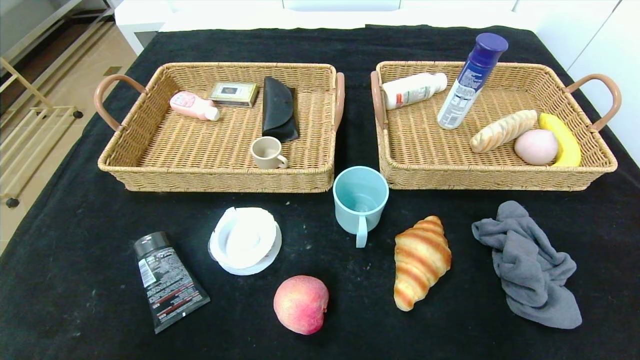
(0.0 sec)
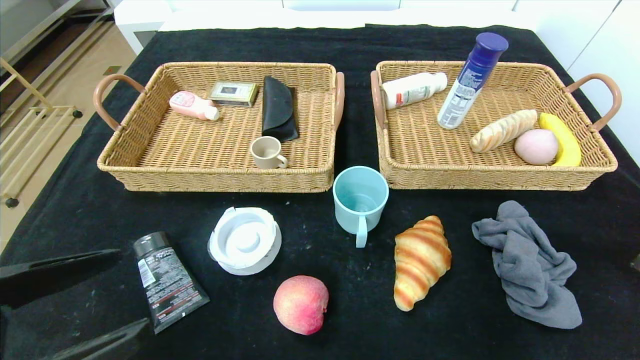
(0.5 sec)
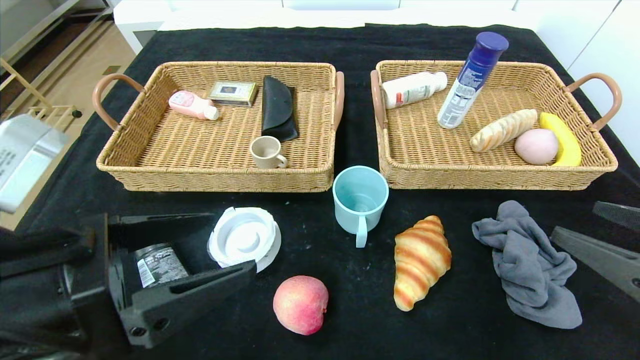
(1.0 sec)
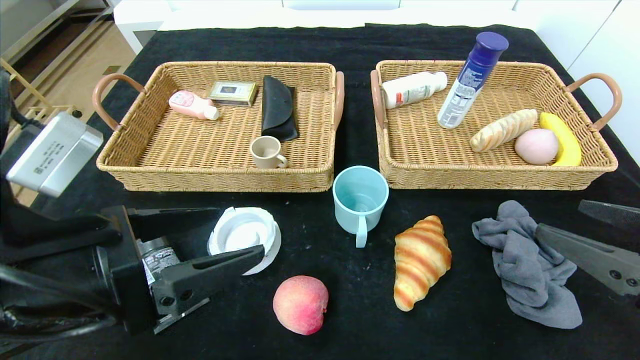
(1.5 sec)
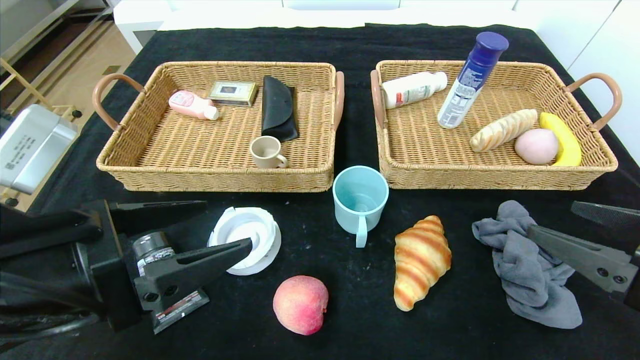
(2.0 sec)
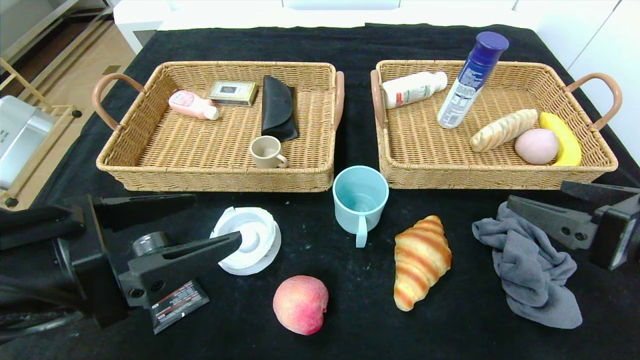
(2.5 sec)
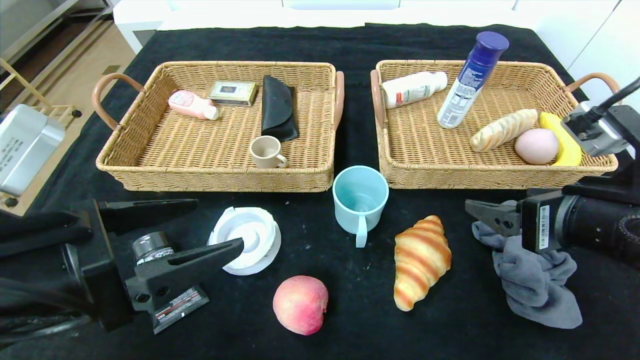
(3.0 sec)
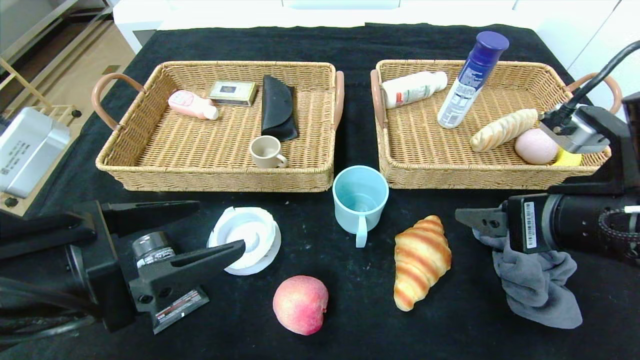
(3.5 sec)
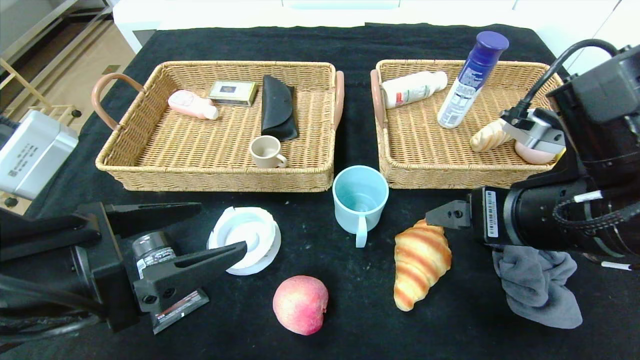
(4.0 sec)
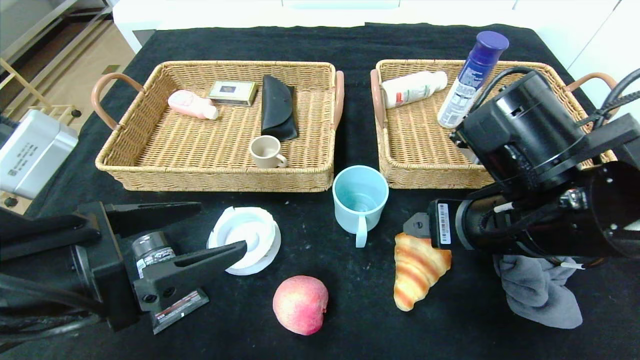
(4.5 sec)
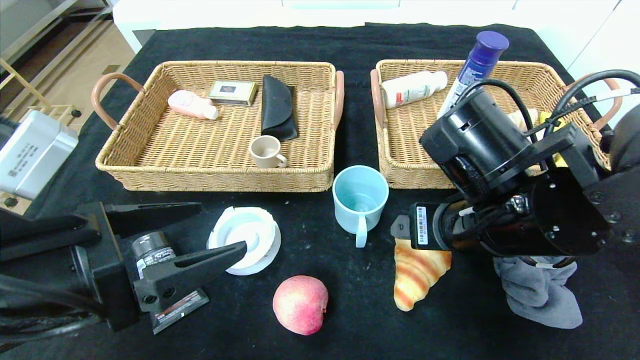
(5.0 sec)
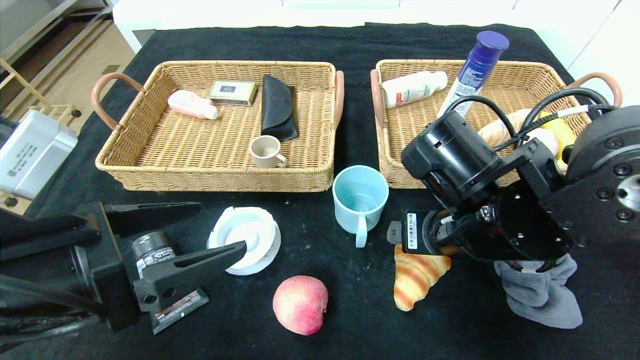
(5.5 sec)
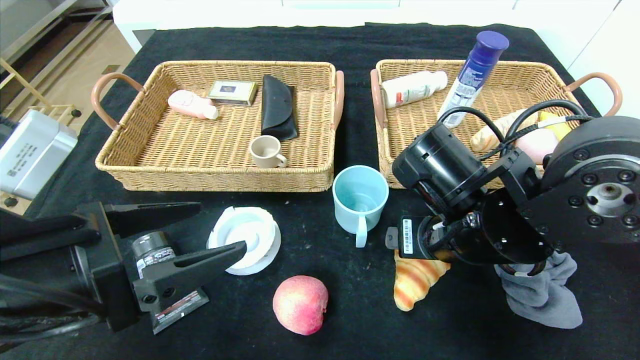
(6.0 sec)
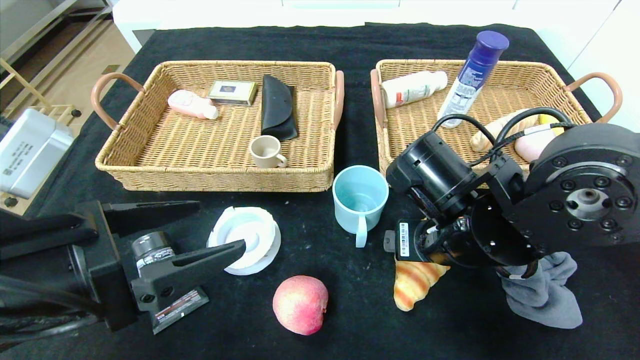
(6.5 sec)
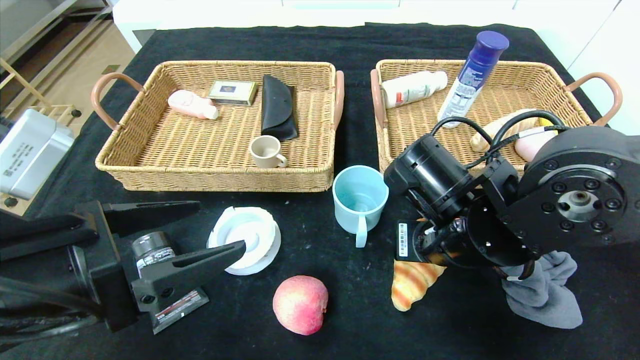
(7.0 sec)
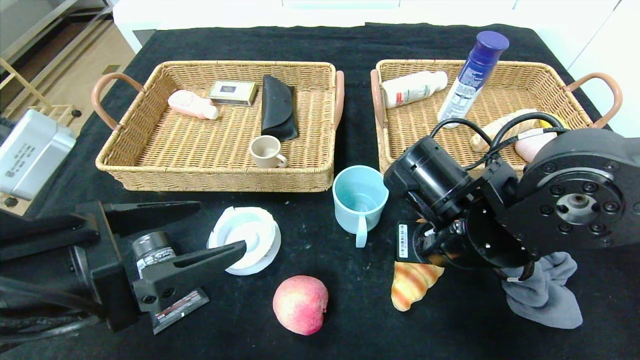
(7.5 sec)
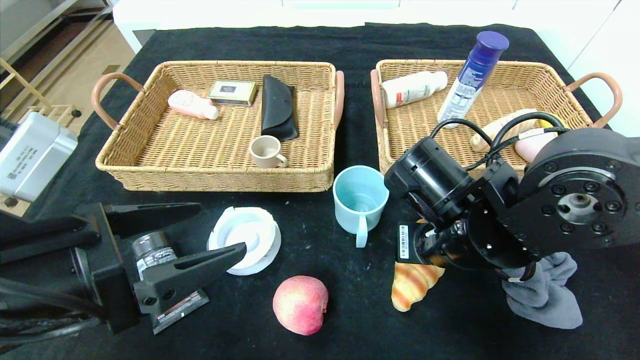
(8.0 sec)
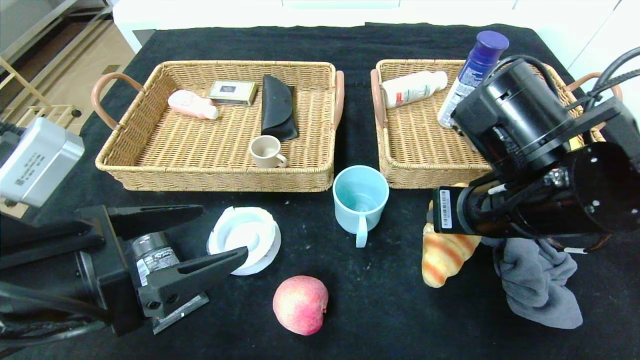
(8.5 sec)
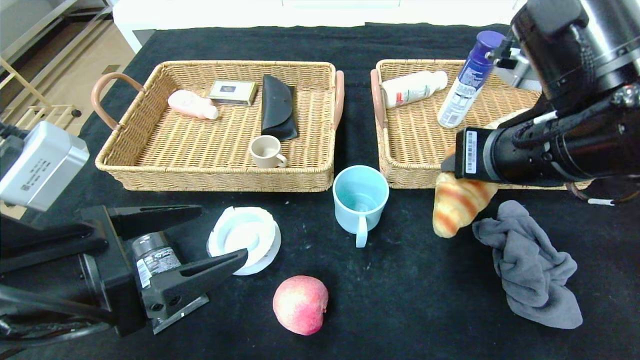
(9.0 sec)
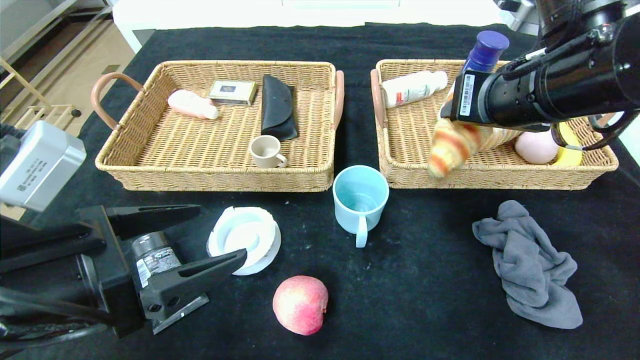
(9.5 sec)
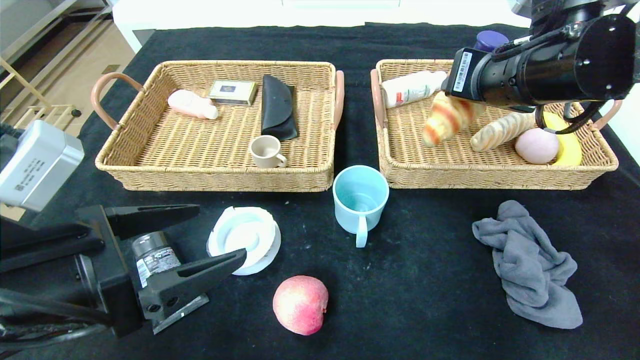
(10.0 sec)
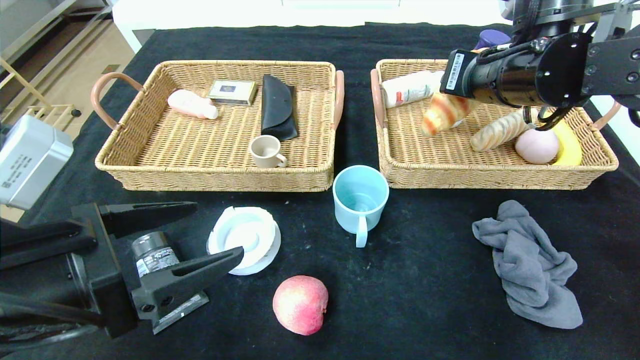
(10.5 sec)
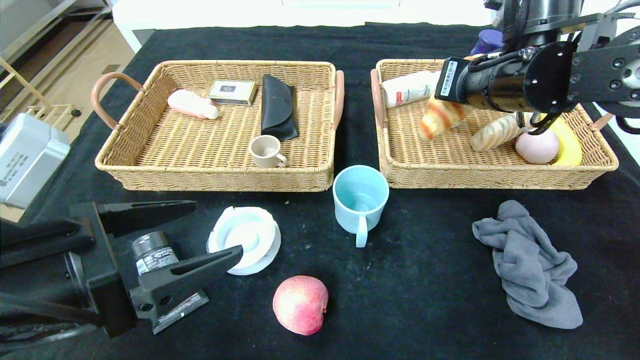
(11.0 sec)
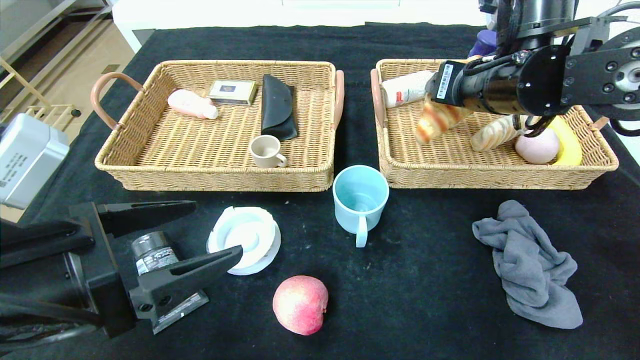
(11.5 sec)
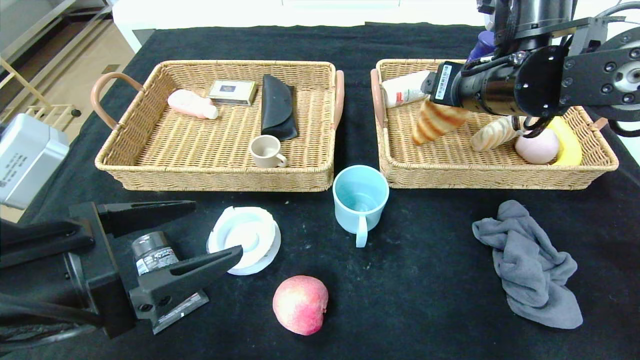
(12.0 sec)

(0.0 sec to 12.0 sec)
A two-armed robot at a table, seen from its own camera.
0.0 sec - 2.0 sec: The left gripper moves forward and to the right, some 15 cm; the right gripper moves forward and to the left, some 15 cm.
2.0 sec - 4.0 sec: The right gripper heads to the left and forward, covering approximately 15 cm.
4.0 sec - 6.0 sec: The right gripper travels to the left and downward by about 10 cm.
6.0 sec - 8.0 sec: The right gripper closes its fingers.
8.0 sec - 10.0 sec: The right gripper shifts about 15 cm upward and to the right.
10.0 sec - 12.0 sec: The right gripper opens.

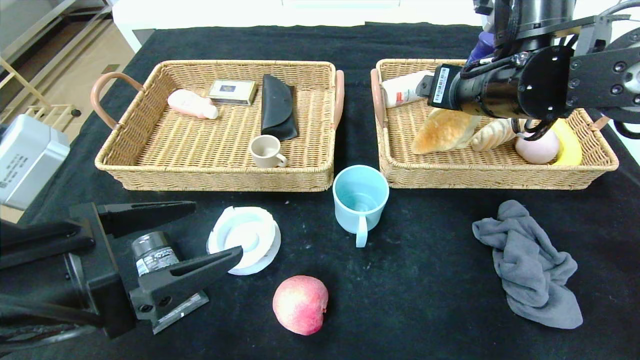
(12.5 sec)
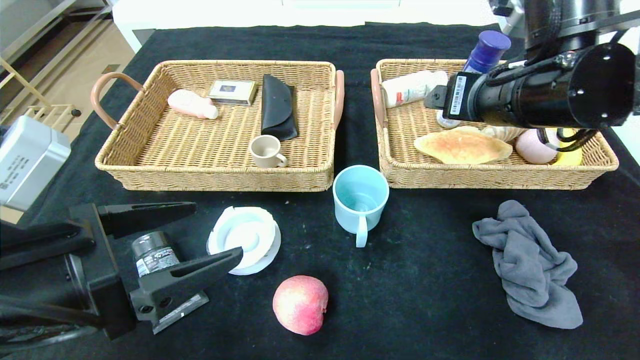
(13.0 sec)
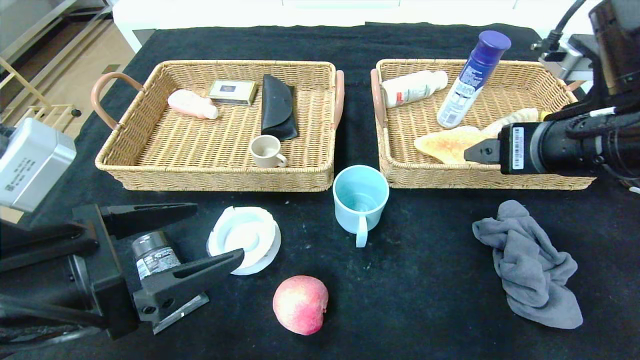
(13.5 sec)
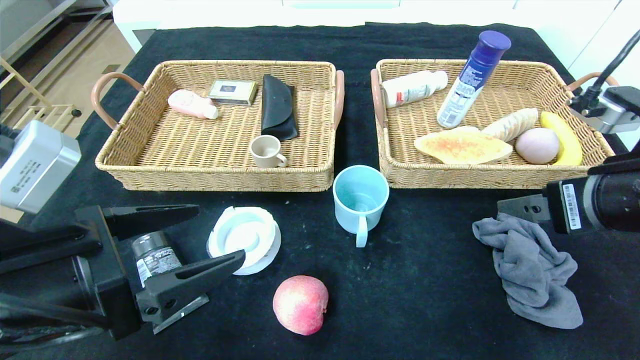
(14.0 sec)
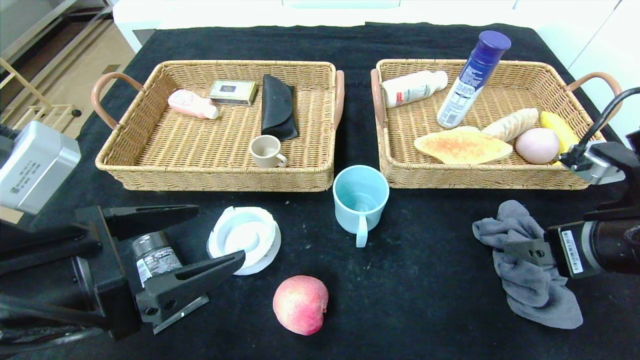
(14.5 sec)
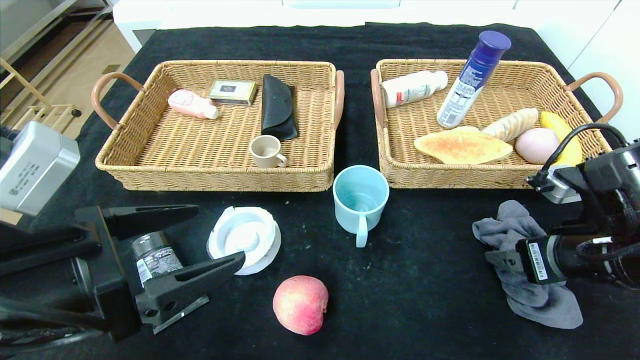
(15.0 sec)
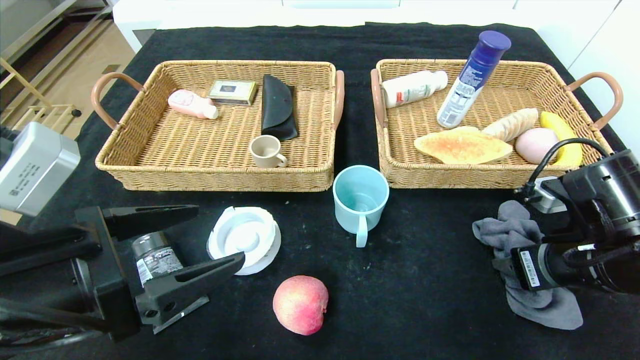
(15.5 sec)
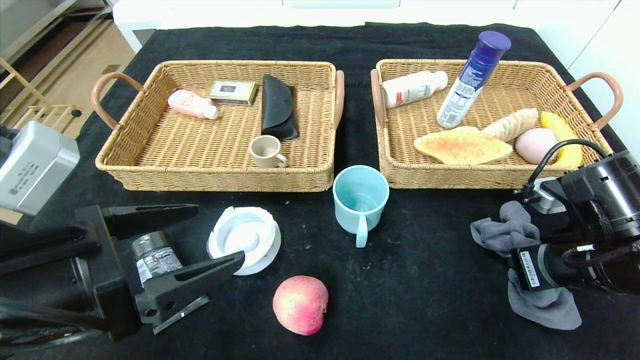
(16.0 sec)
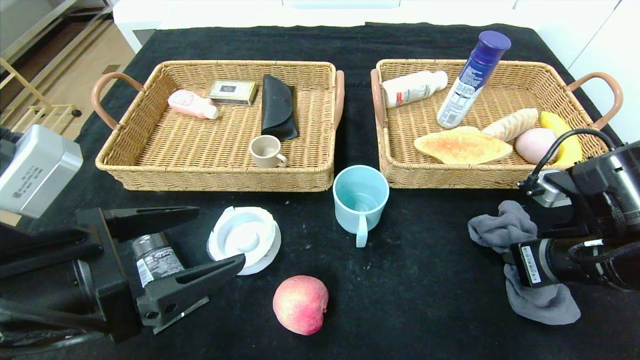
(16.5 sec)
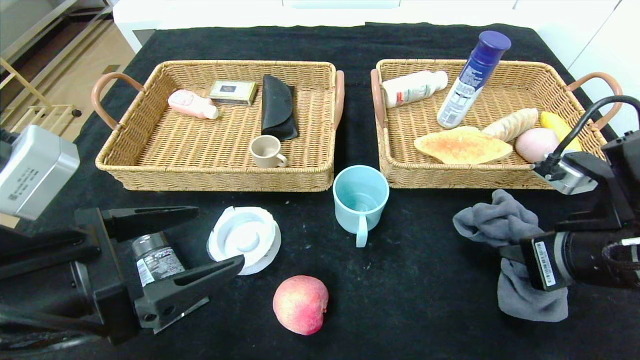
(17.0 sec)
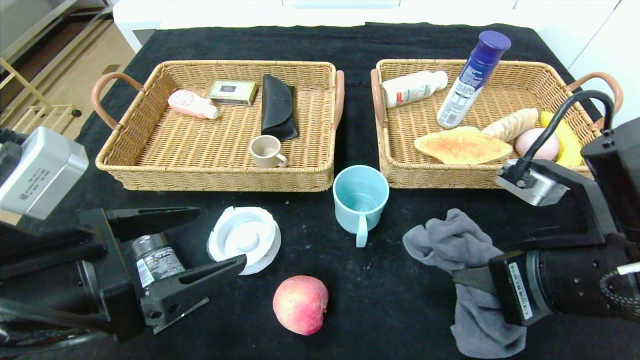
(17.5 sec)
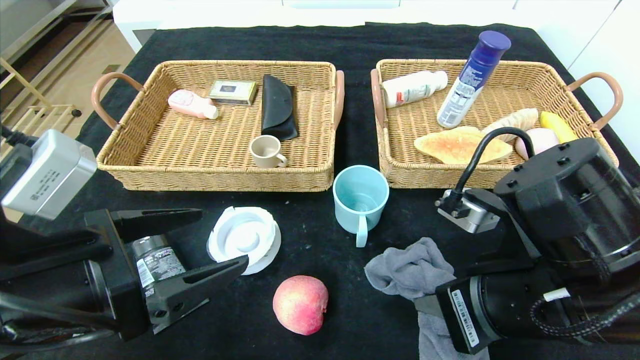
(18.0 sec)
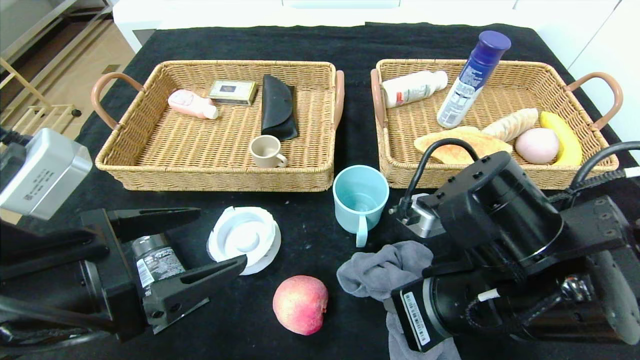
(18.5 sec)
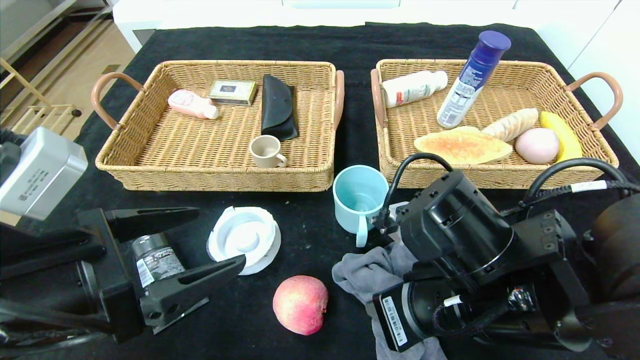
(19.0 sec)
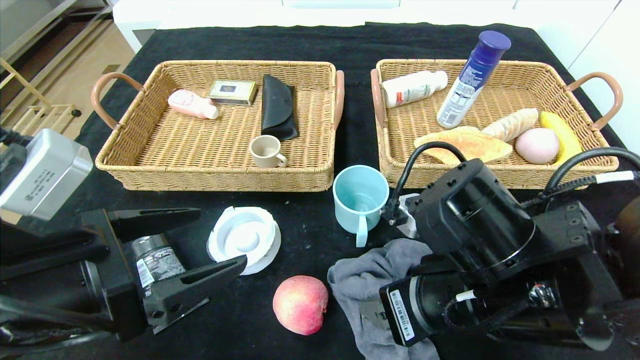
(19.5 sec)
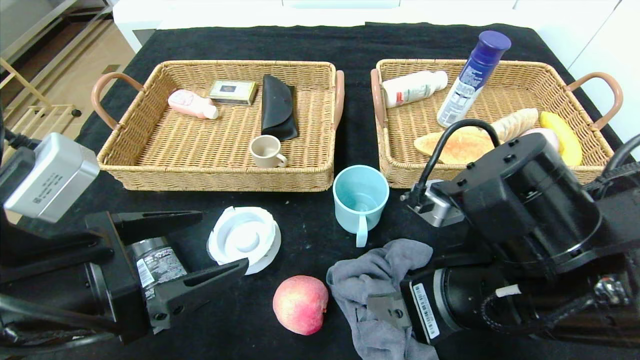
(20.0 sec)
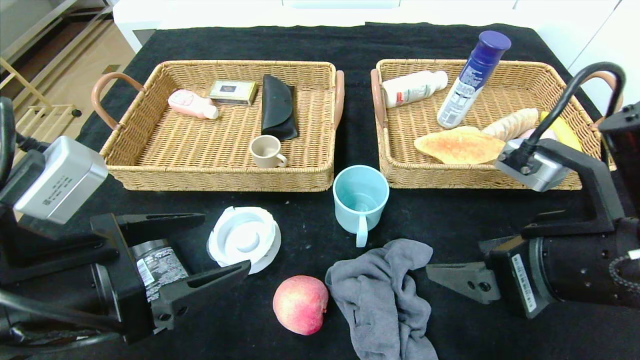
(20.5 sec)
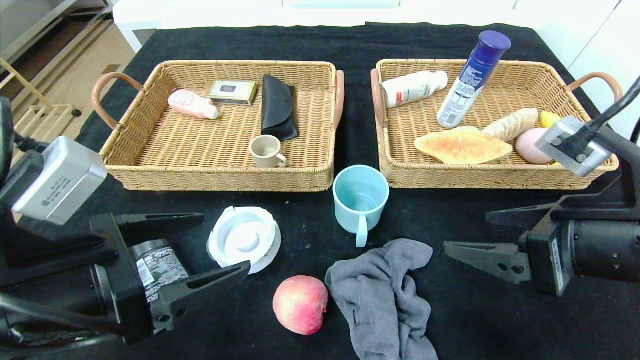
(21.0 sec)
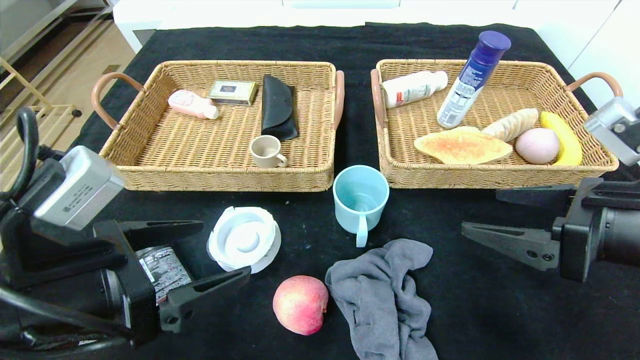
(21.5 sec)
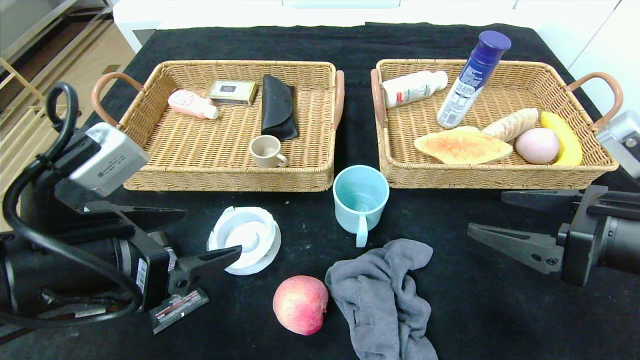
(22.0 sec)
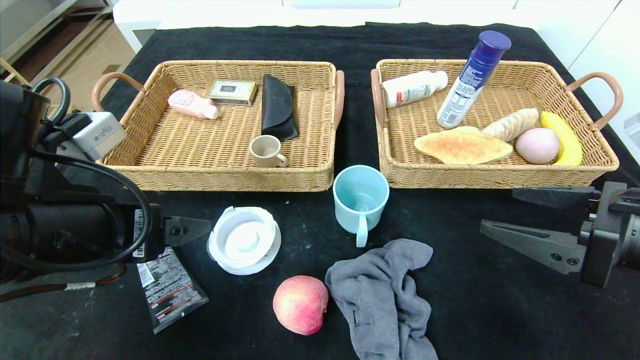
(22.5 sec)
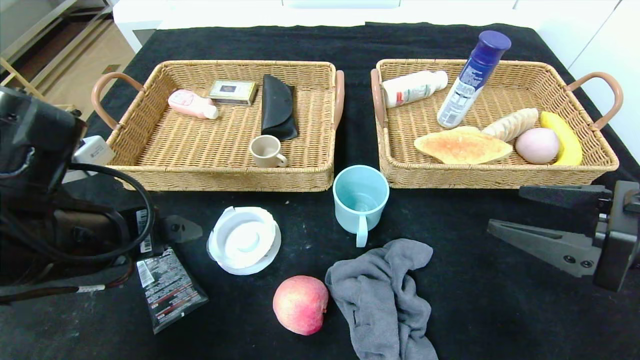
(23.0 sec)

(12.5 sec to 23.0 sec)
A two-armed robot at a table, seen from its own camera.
Step, 13.0 sec - 20.0 sec: Place the gray towel in the center of the table.
12.5 sec - 14.5 sec: The right gripper heads backward, to the right and downward, covering approximately 20 cm.
14.5 sec - 16.5 sec: The right gripper closes.
16.5 sec - 19.0 sec: The right gripper shifts roughly 15 cm to the left.
19.0 sec - 21.0 sec: The right gripper heads to the right and upward, covering about 15 cm, and opens.
